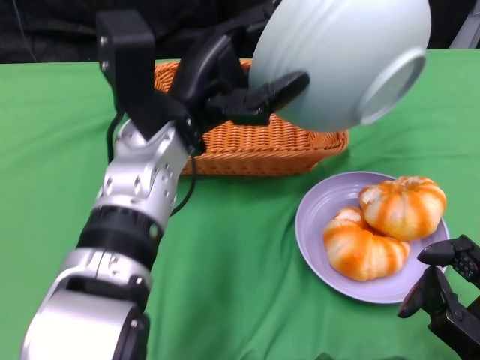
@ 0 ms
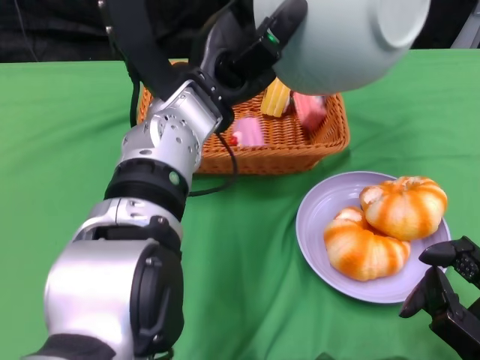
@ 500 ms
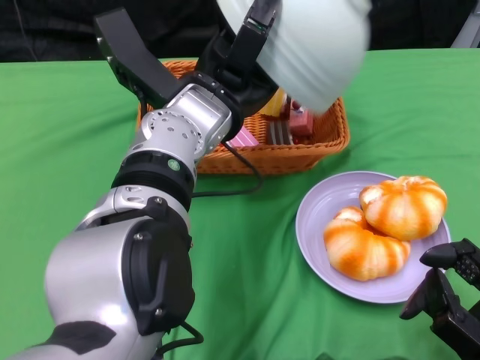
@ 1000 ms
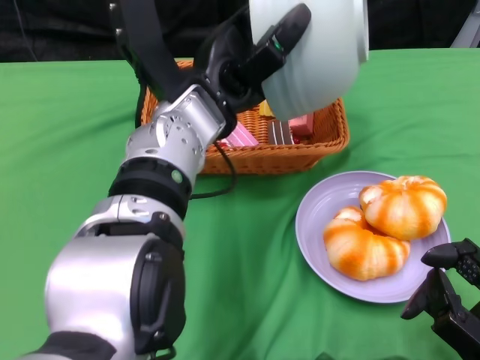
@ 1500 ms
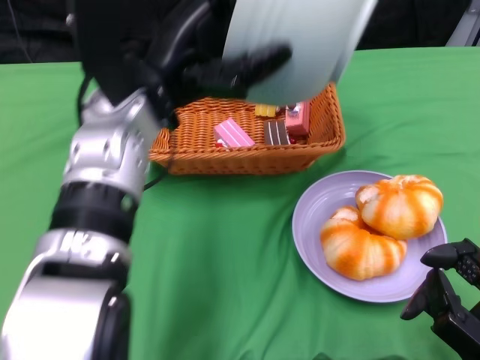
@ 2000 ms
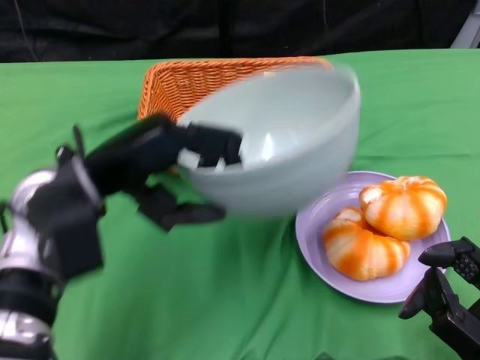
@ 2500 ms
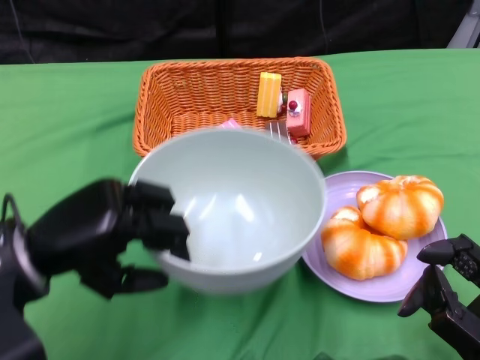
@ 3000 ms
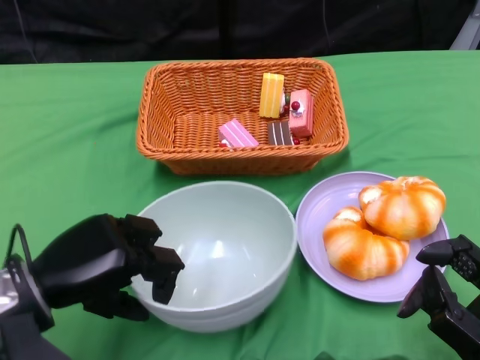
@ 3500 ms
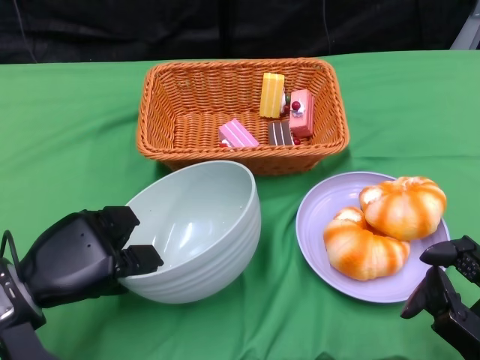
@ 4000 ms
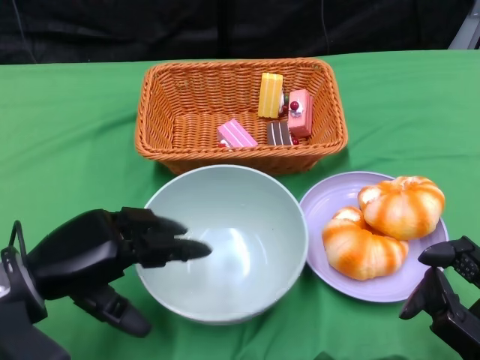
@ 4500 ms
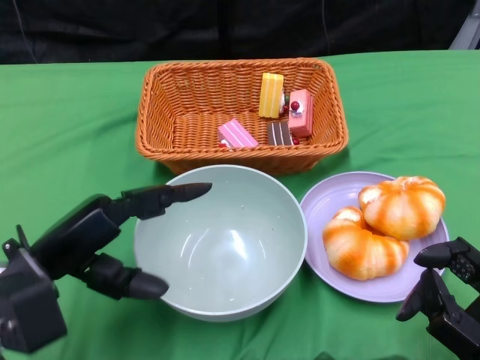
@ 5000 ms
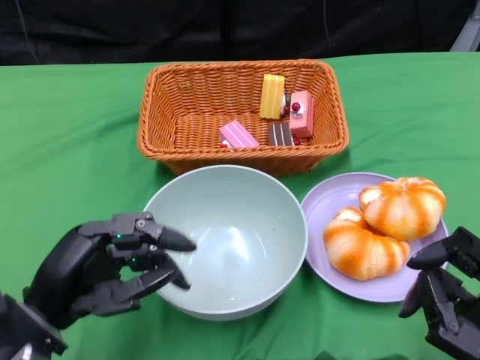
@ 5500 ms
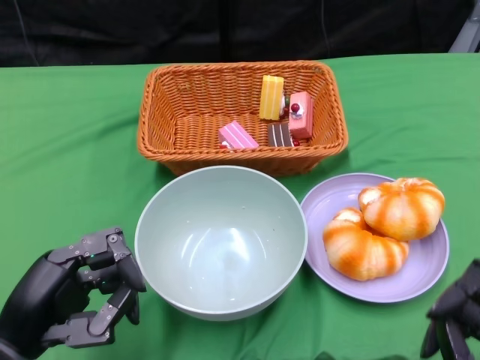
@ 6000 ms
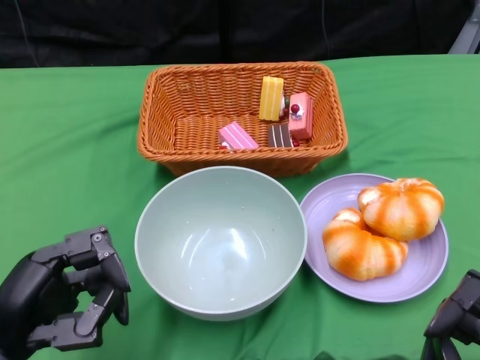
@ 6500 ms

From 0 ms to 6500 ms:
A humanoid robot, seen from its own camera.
Step, from 0 ms to 2000 ms: Pour the cake into the basket with the left gripper.
Step, from 2500 ms to 4500 ms: Place the bowl on the table with the left gripper.
From 2000 ms to 4500 ms: The left hand travels downward, to the left and backward by approximately 20 cm.
From 4500 ms to 6500 ms: The left hand shifts approximately 10 cm backward. Meanwhile the right hand shifts some 5 cm backward.
